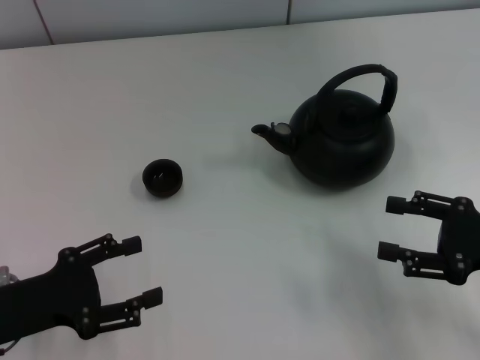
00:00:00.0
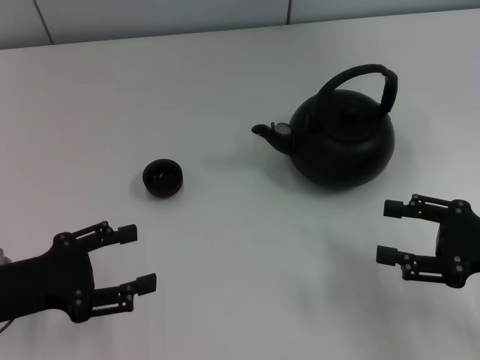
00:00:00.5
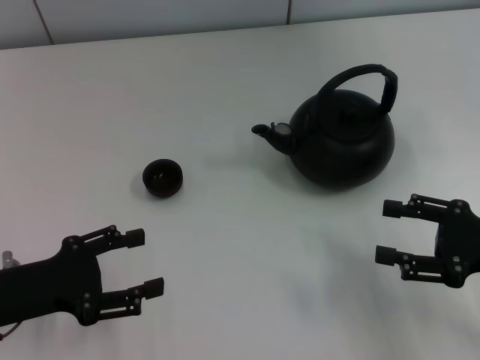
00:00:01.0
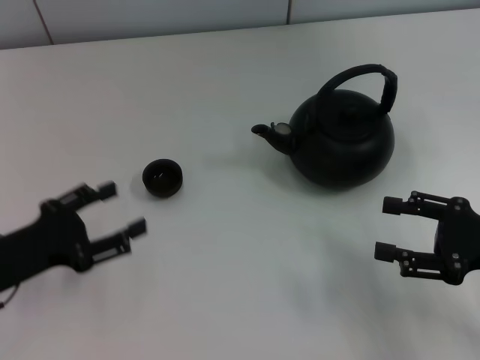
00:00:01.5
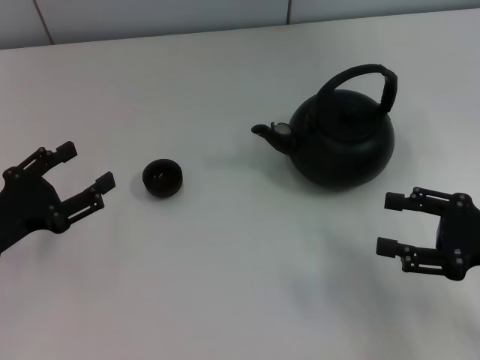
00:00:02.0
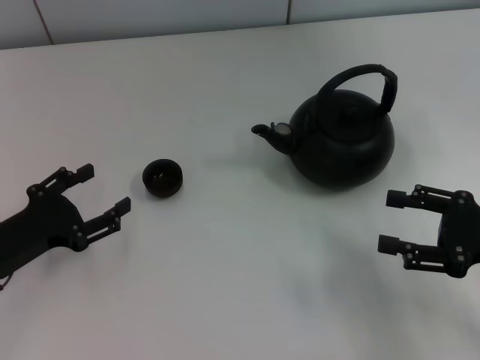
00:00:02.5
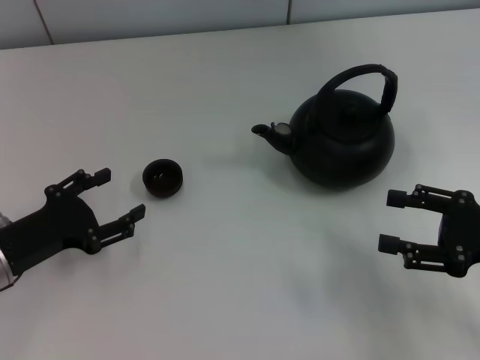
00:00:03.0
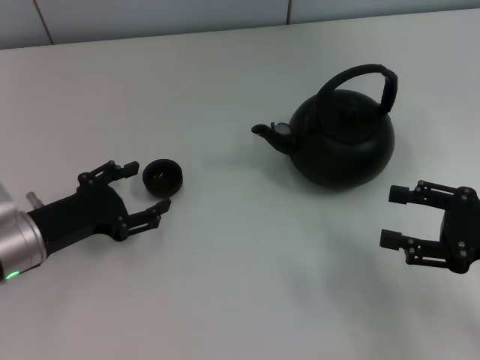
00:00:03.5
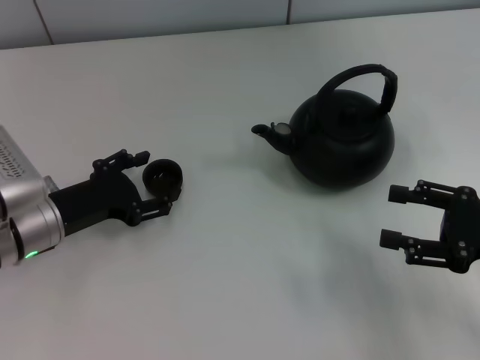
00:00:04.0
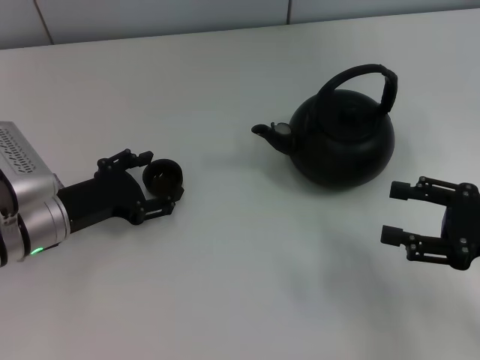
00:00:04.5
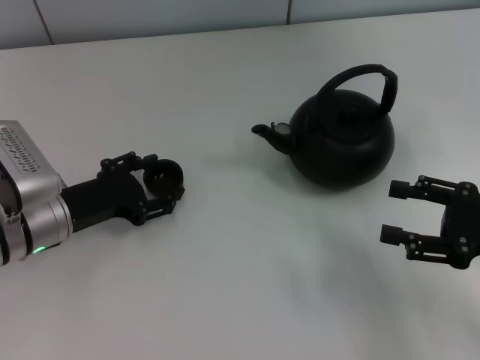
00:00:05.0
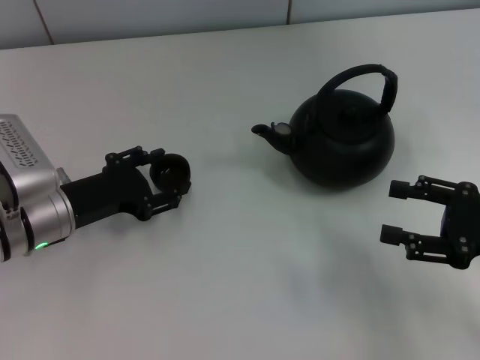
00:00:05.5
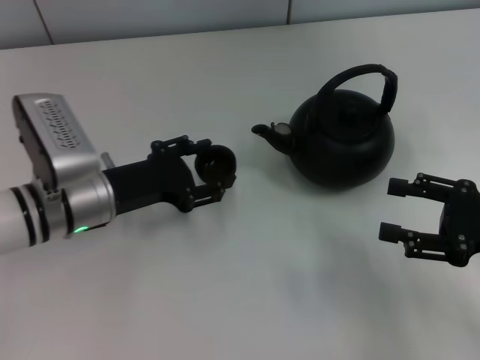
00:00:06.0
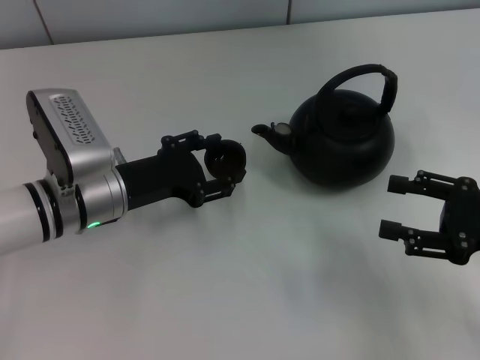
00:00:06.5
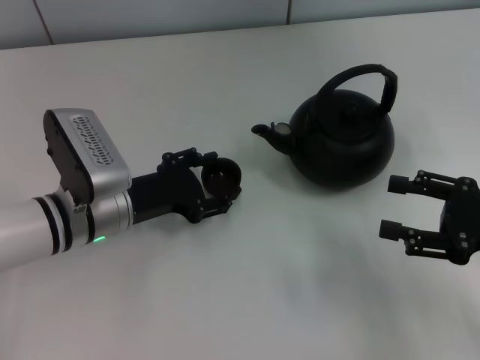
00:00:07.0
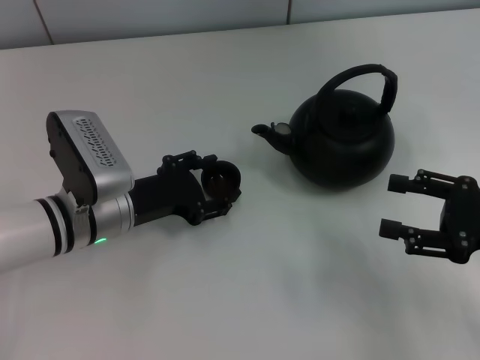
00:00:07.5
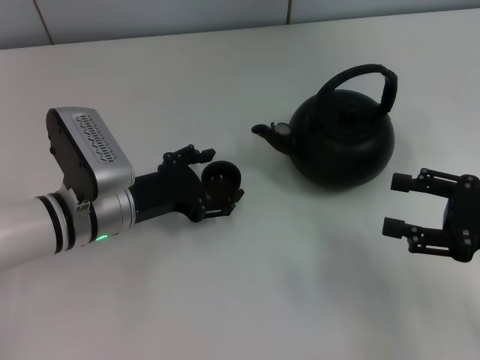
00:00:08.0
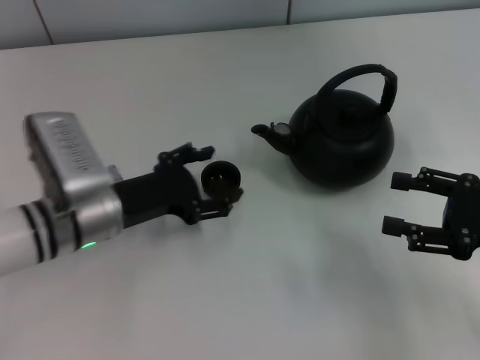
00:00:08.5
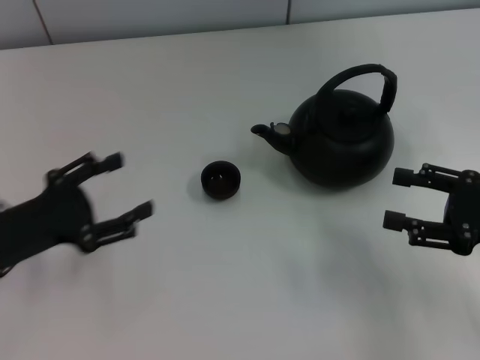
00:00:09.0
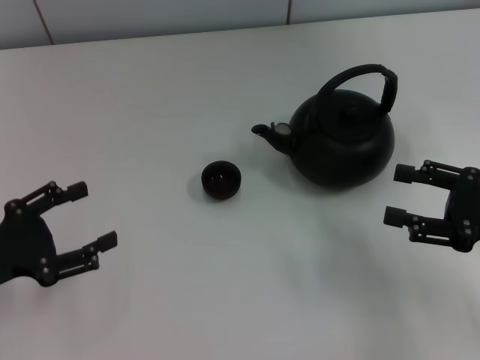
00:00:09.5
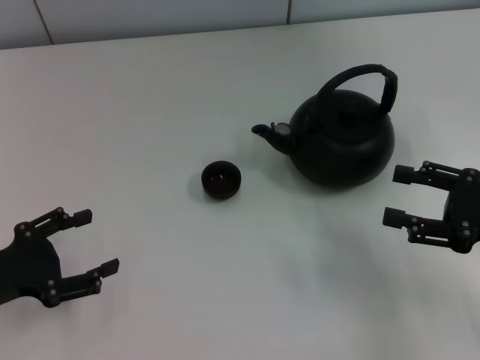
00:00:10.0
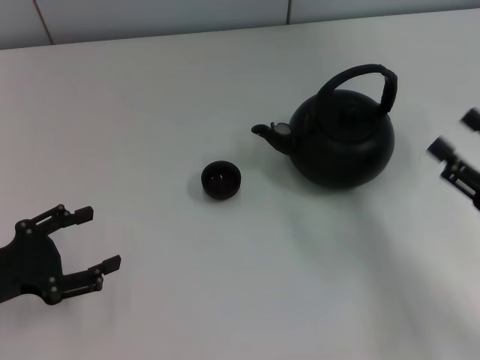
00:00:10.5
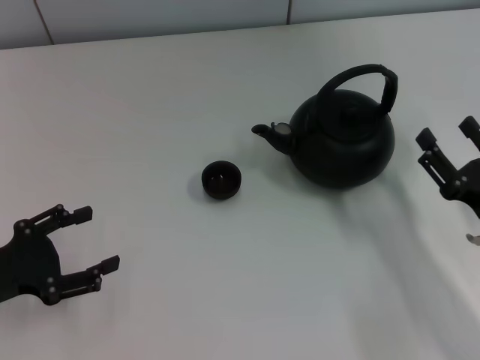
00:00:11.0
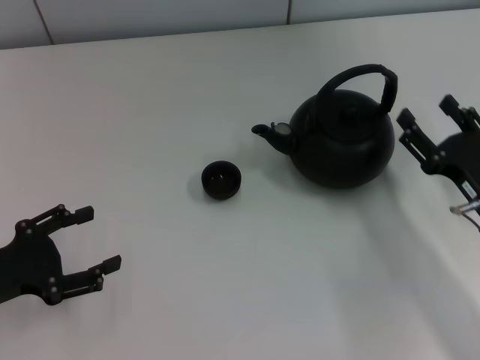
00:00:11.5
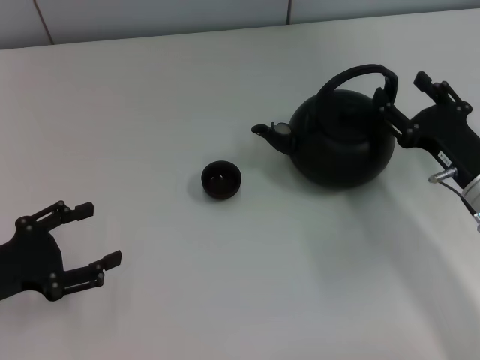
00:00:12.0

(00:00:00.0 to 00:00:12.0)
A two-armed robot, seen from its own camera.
Task of the whole recording: Grasp the handle of the teapot with one hand and pour tea into the teacup.
Step, 00:00:00.0 - 00:00:06.0: Pick up the teacup with the left gripper.
Step, 00:00:06.5 - 00:00:08.5: Place the teacup in the center of view with the left gripper.
00:00:02.0 - 00:00:04.0: The left gripper shifts roughly 10 cm to the right and forward.
00:00:04.0 - 00:00:06.0: The left gripper travels to the right by about 5 cm, and closes its fingers.
00:00:06.0 - 00:00:08.0: The left gripper opens its fingers.
00:00:08.0 - 00:00:10.0: The left gripper is displaced to the left and backward by about 20 cm, and opens its fingers.
00:00:10.0 - 00:00:12.0: The right gripper goes some 10 cm to the left and downward.

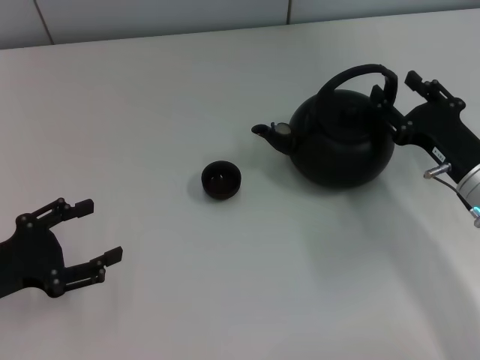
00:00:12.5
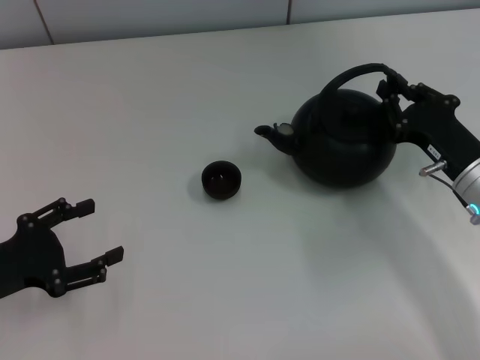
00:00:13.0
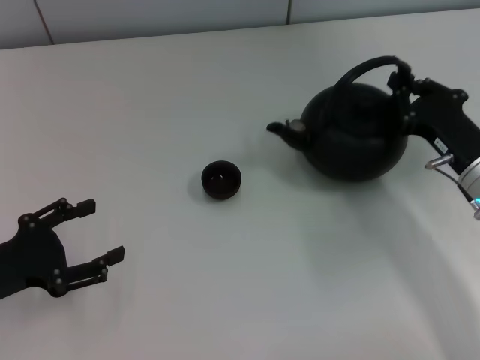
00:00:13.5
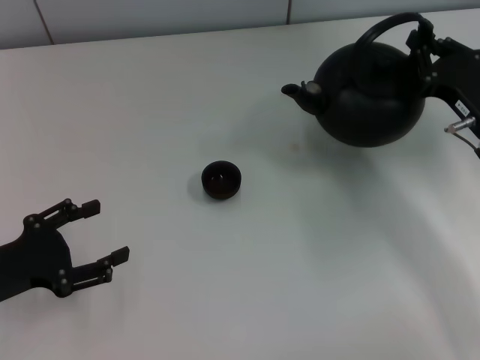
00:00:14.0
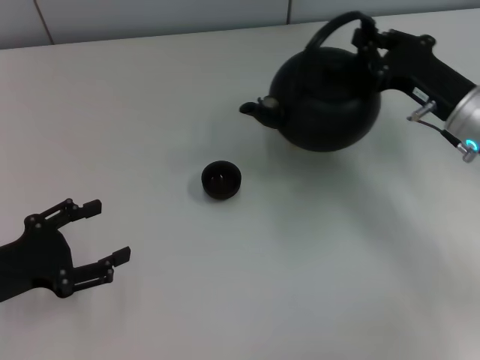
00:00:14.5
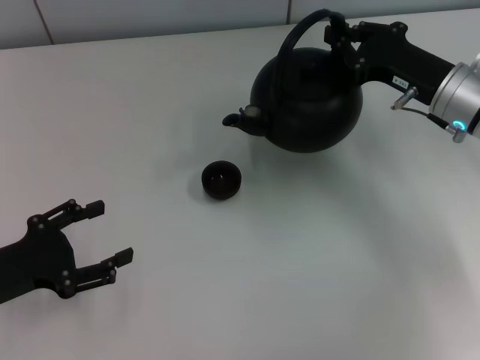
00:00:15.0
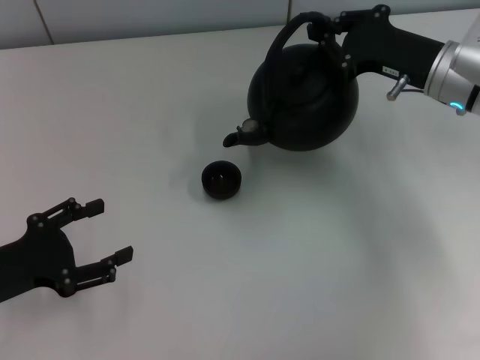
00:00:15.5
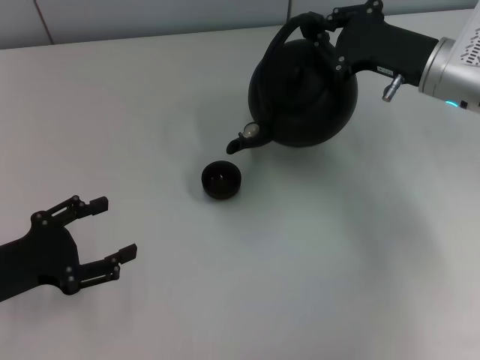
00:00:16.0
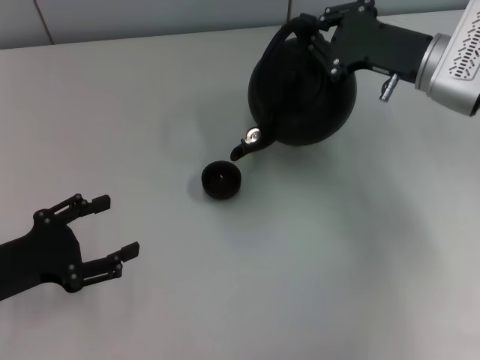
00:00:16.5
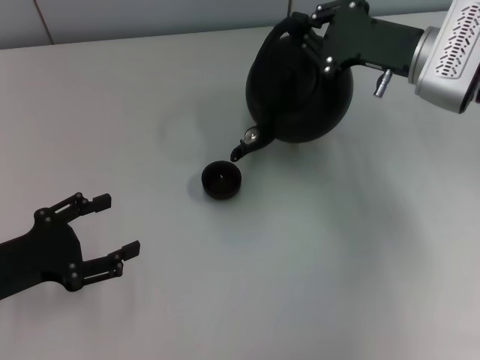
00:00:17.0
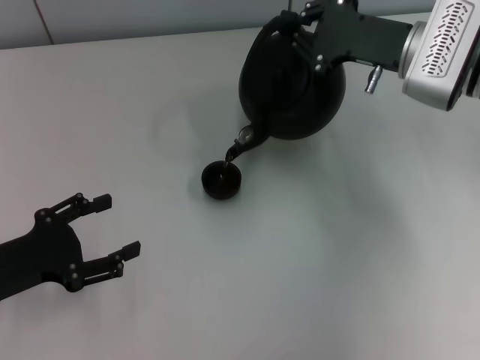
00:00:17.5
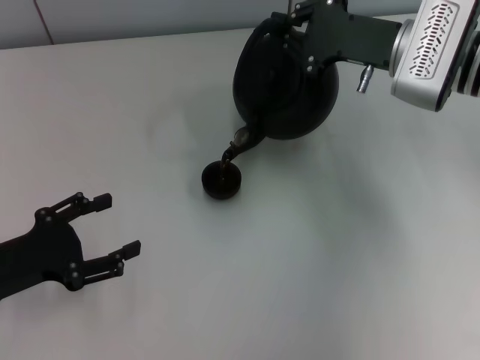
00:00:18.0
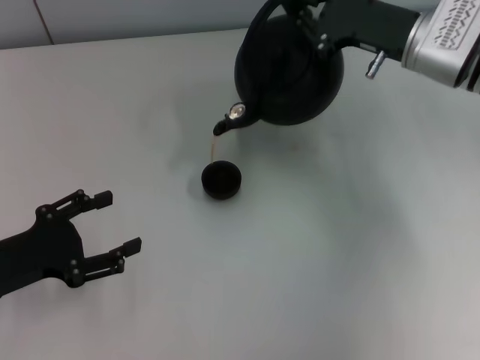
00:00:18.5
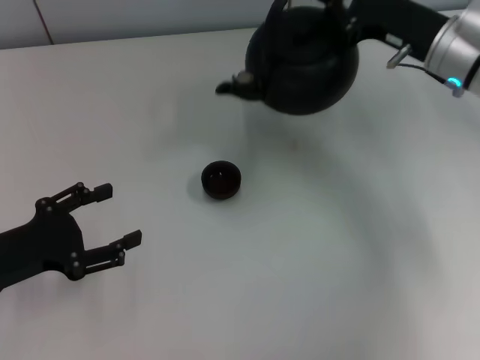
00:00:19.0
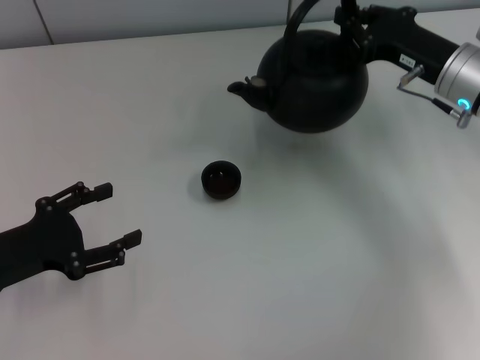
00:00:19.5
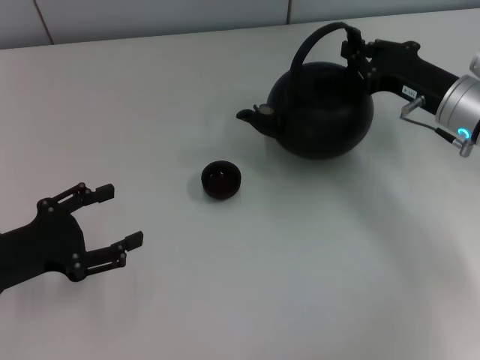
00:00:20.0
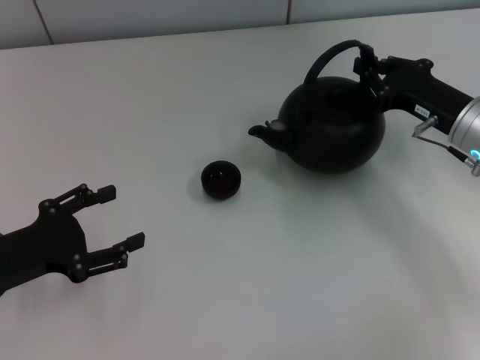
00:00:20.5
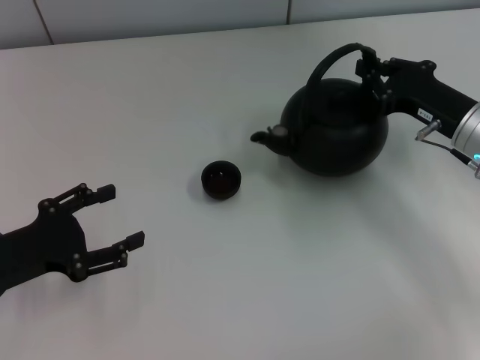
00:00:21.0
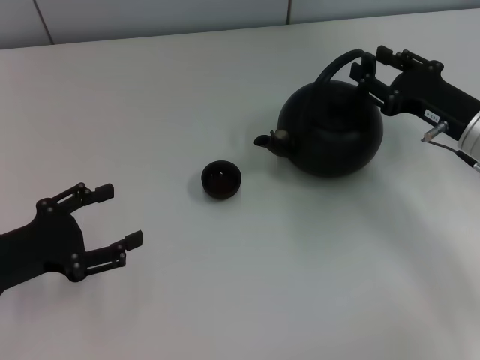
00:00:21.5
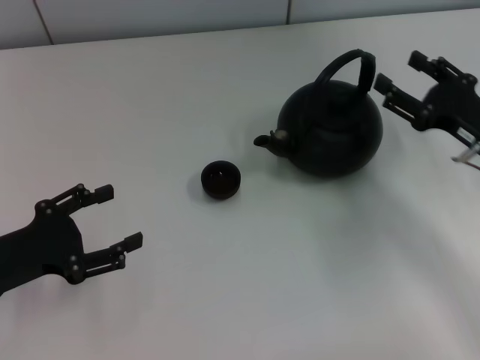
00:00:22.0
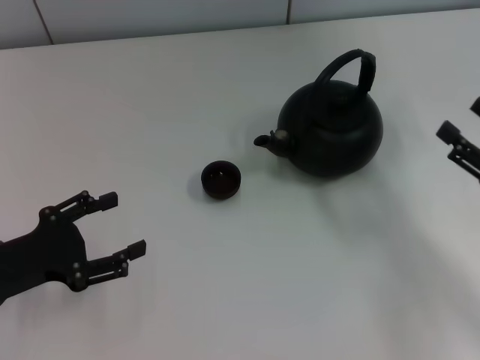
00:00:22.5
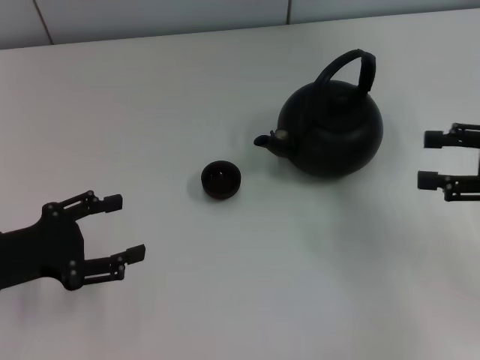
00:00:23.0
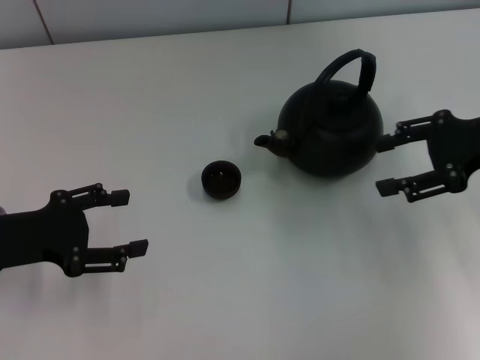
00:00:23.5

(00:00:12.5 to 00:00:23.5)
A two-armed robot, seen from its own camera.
Task of the whole recording: Grasp the handle of the teapot with one hand and pour tea into the teacup.
Step, 00:00:19.0 - 00:00:21.0: Put down the teapot with the right gripper.
00:00:12.5 - 00:00:14.5: The right gripper is displaced forward by some 5 cm, and closes up.
00:00:14.5 - 00:00:16.0: The right gripper ends up approximately 5 cm from where it was.
00:00:16.0 - 00:00:18.0: The grippers make only small movements.
00:00:18.0 - 00:00:20.0: The right gripper goes about 10 cm downward and to the right.
00:00:20.0 - 00:00:21.5: The right gripper opens.
00:00:21.5 - 00:00:23.5: The right gripper travels upward by approximately 10 cm, moves some 10 cm backward and comes back, and opens its fingers.

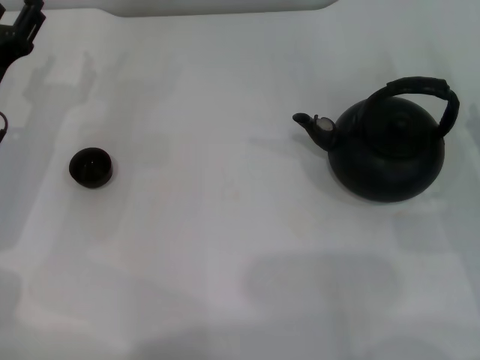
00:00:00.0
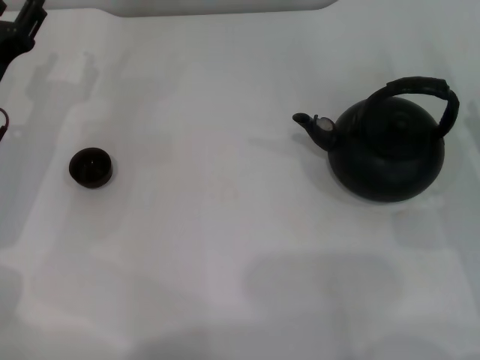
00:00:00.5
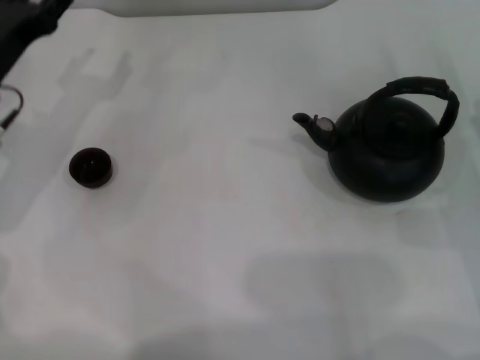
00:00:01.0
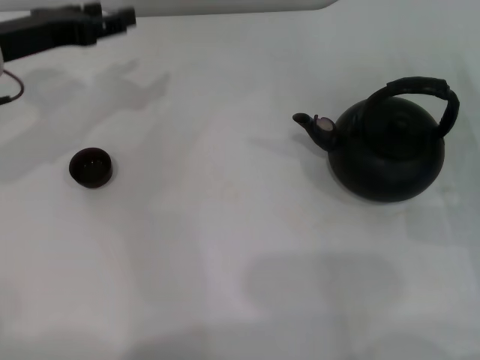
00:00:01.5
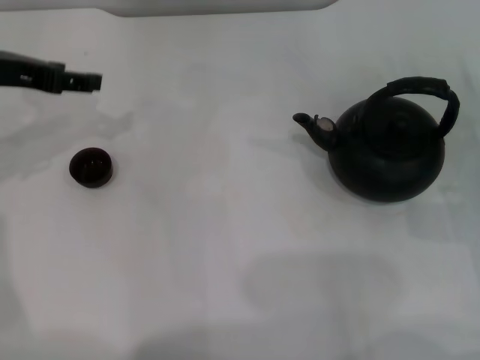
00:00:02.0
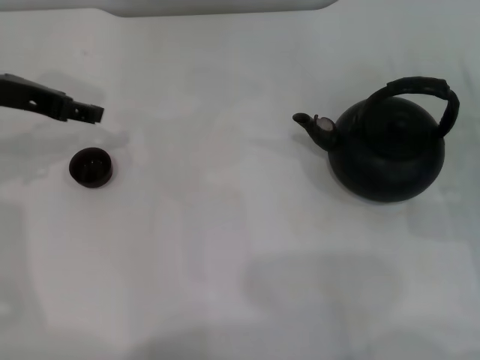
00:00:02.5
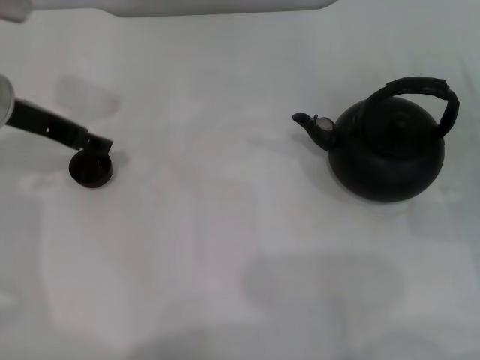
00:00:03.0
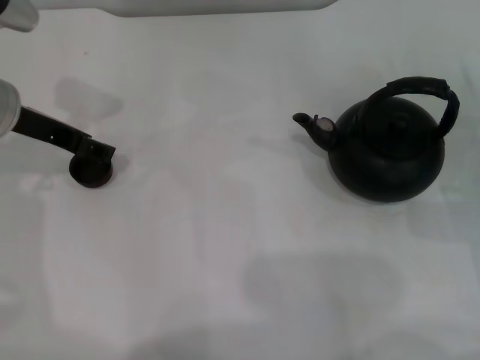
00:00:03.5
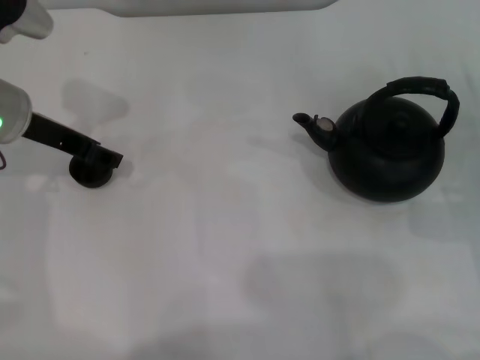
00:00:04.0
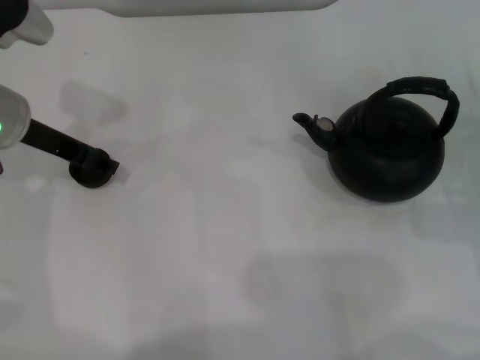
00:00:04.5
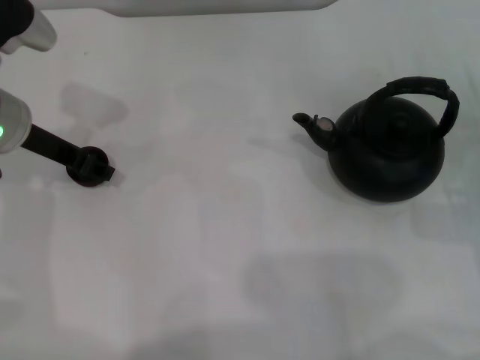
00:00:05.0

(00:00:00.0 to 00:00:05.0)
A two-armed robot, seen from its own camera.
Task of the whole recording: Grasp the handle of the teapot with one hand and pour tea into the teacup.
00:00:00.0 - 00:00:02.5: The left gripper goes about 10 cm upward.
00:00:02.5 - 00:00:05.0: The grippers stay close to where they were, moving slightly.
